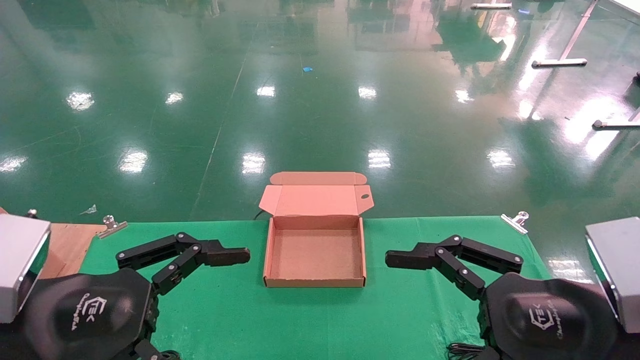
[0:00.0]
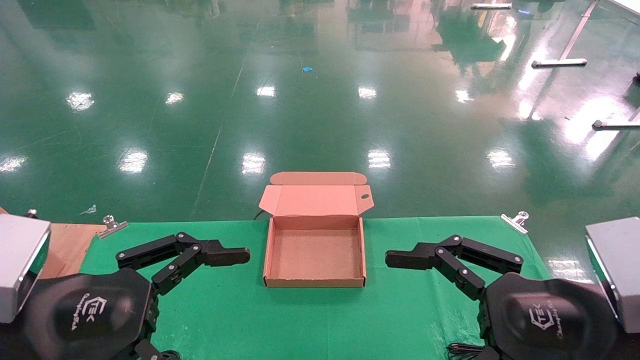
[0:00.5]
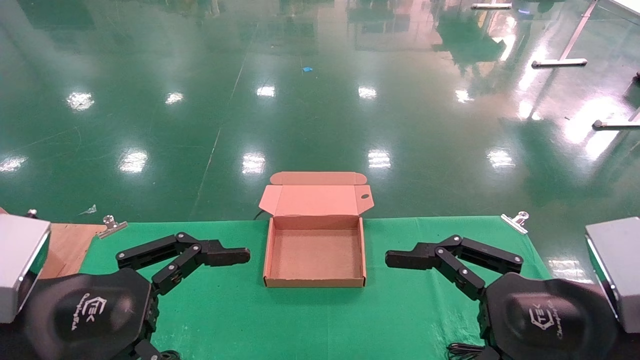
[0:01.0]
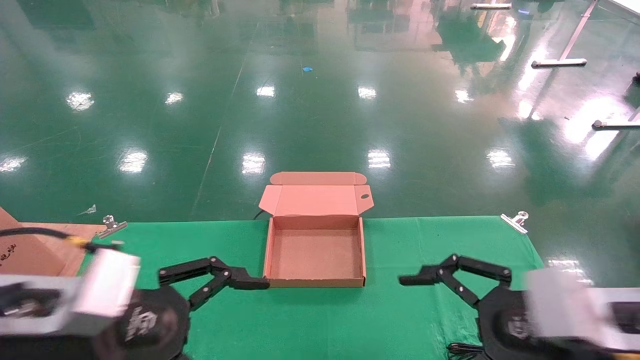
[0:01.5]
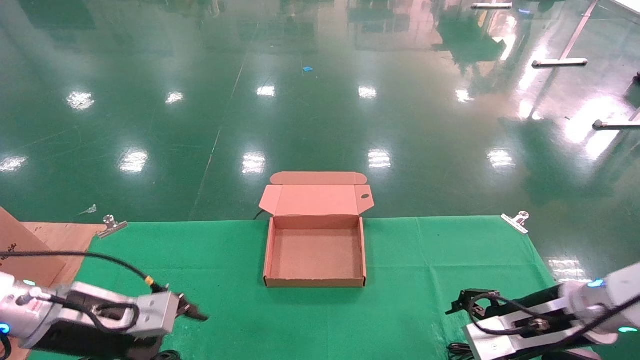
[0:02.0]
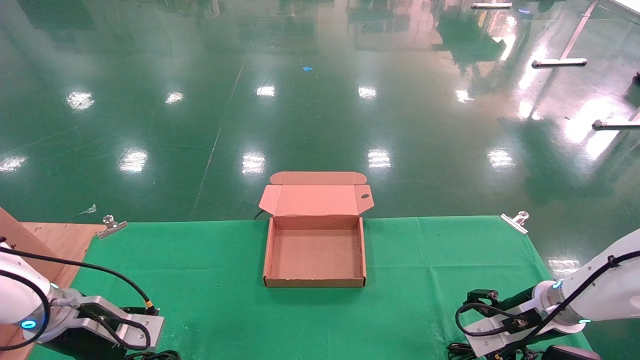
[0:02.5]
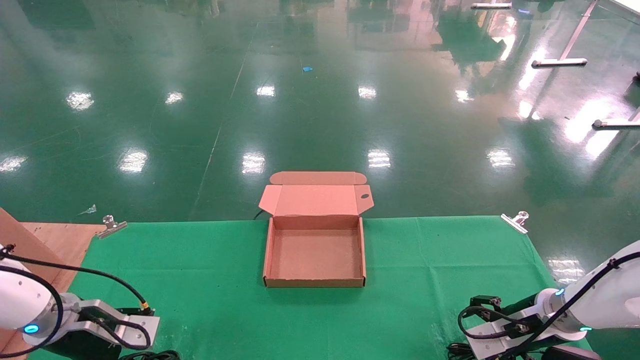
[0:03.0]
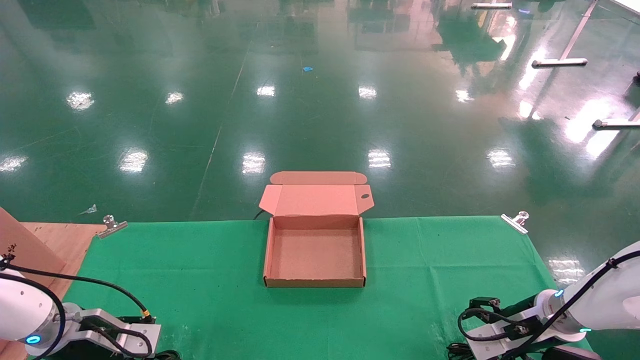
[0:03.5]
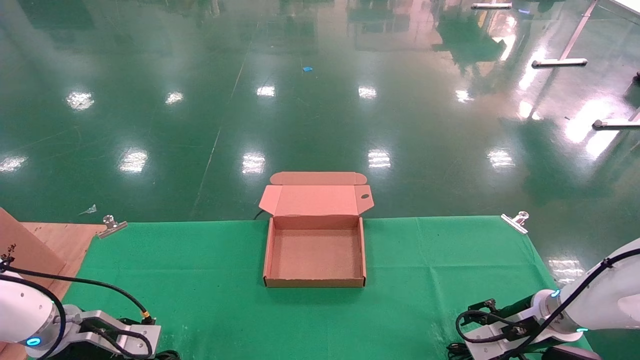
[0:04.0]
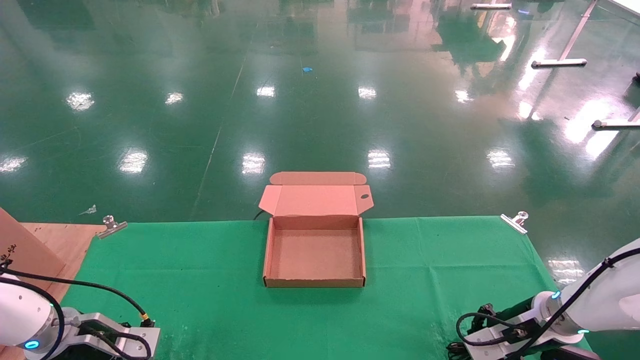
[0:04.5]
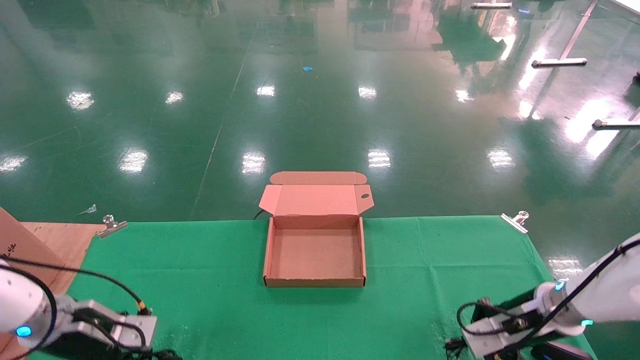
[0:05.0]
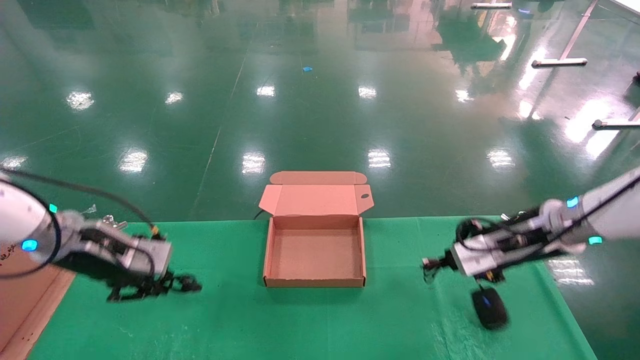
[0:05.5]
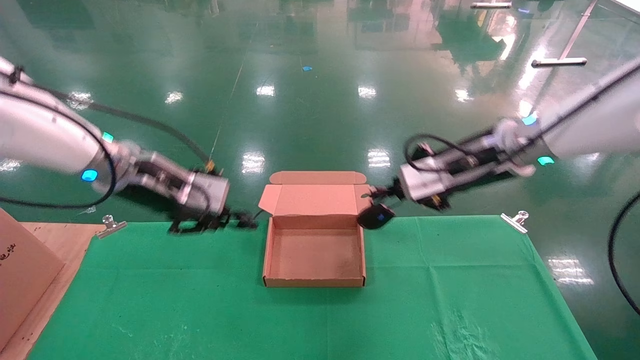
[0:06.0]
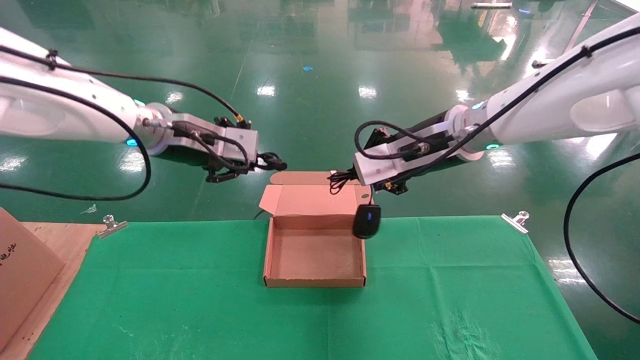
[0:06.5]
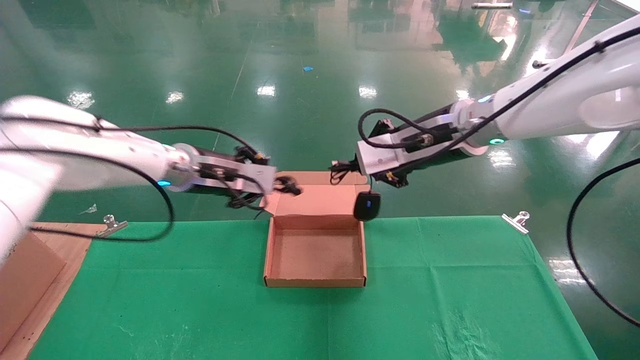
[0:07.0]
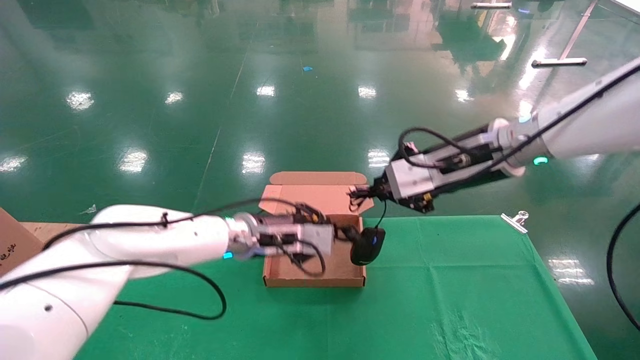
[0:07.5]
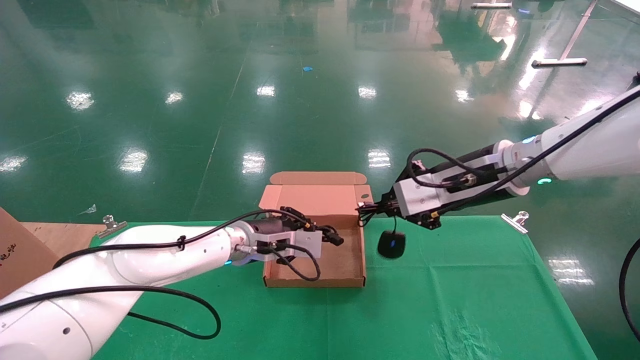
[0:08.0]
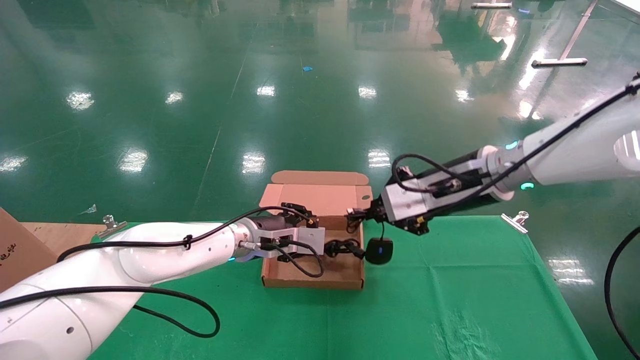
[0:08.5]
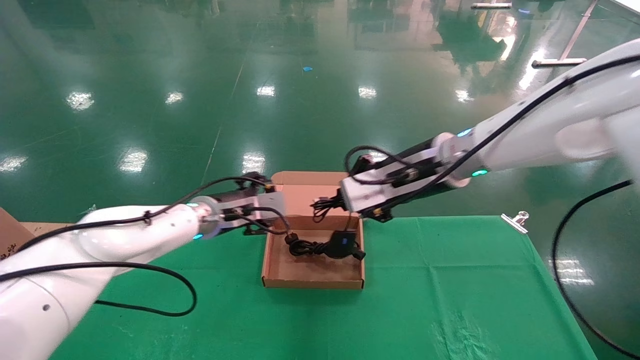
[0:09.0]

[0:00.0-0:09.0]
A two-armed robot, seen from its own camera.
Step, 0:01.5 to 0:04.5: Grab and lift both the mouse and power cord from the accessory packaging area at the same time.
0:00.0 to 0:02.0: Both grippers travel together forward and downward, approximately 20 cm.
0:02.0 to 0:04.5: The left gripper is displaced downward, to the left and forward by some 10 cm, and closes. Meanwhile the right gripper travels downward and forward by approximately 10 cm, and closes its fingers.
0:04.5 to 0:07.0: The right gripper goes some 35 cm upward and to the left, while the left gripper moves upward and to the right, some 30 cm.
0:07.0 to 0:09.0: The left gripper is displaced downward by some 10 cm, and opens up, while the right gripper shifts by about 5 cm.

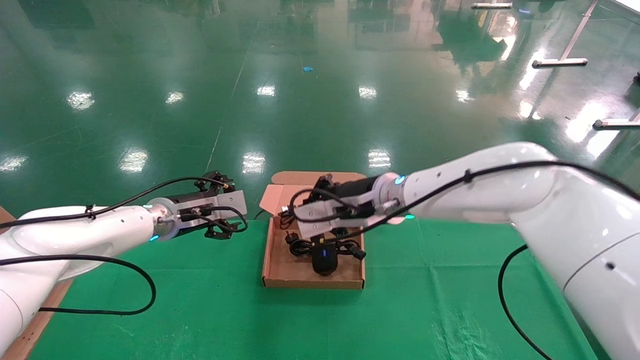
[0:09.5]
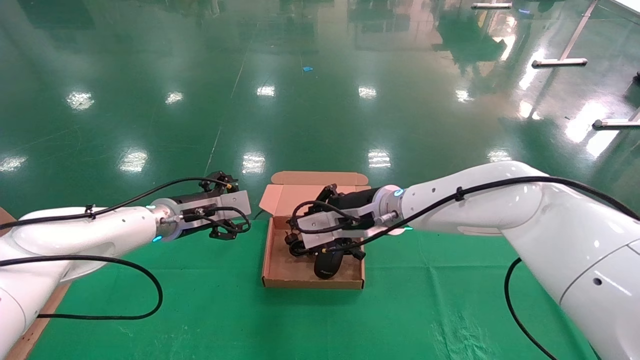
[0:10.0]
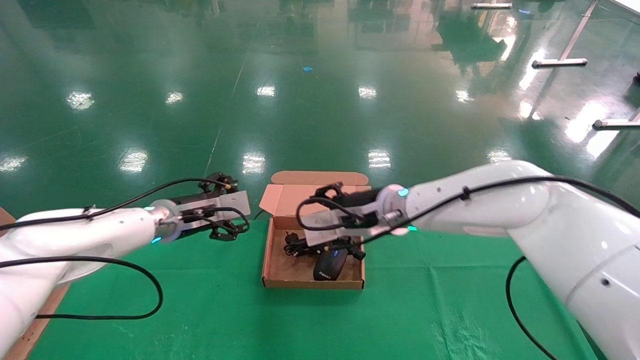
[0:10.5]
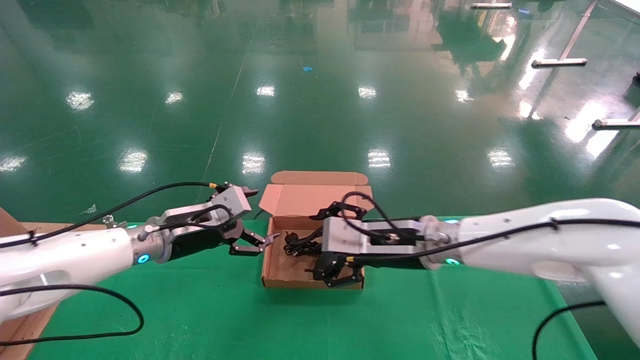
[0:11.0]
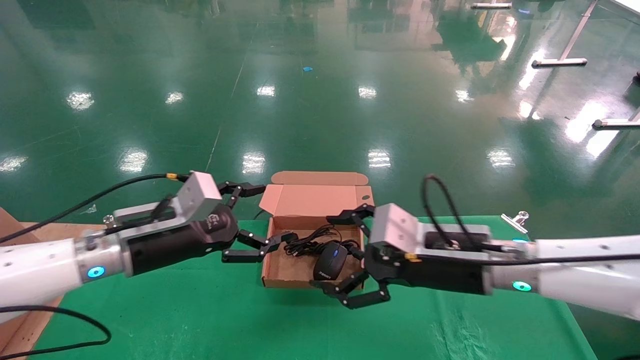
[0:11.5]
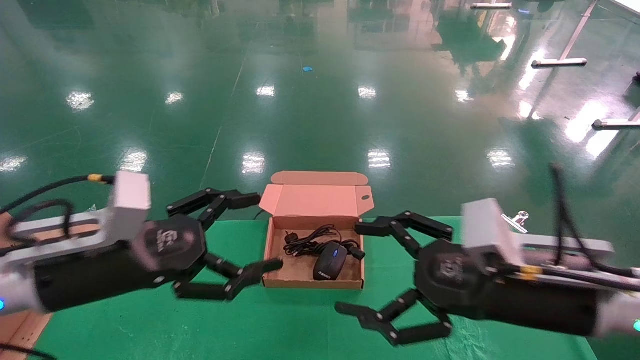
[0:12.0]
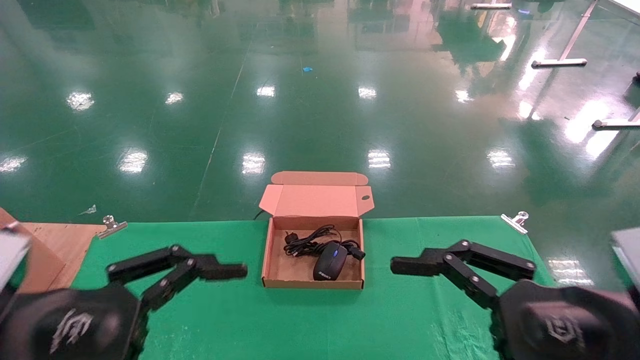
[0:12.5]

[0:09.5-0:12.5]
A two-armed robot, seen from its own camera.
0:09.5 to 0:11.0: The left gripper shifts roughly 5 cm backward; the right gripper moves downward, roughly 5 cm, and opens its fingers.
0:11.0 to 0:12.5: The right gripper heads backward and to the right, covering approximately 25 cm. The left gripper heads backward, covering some 25 cm.

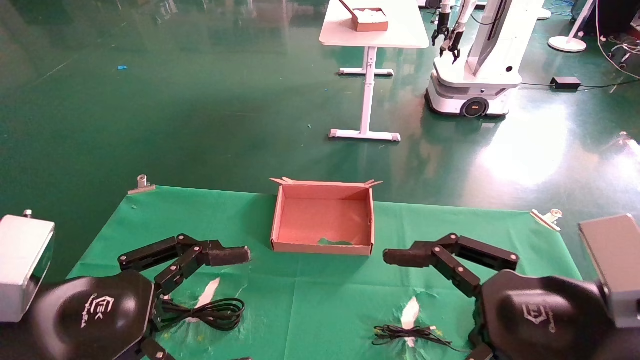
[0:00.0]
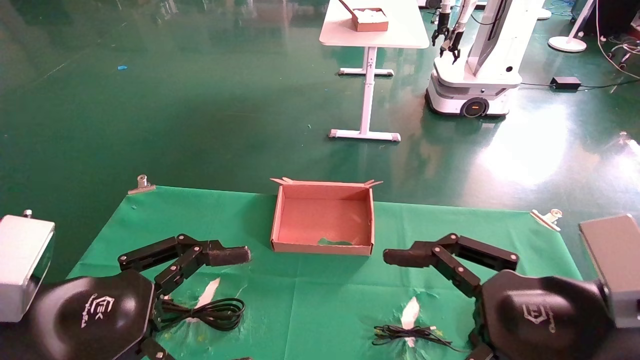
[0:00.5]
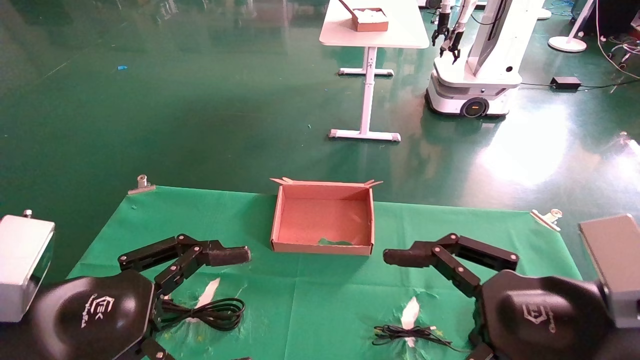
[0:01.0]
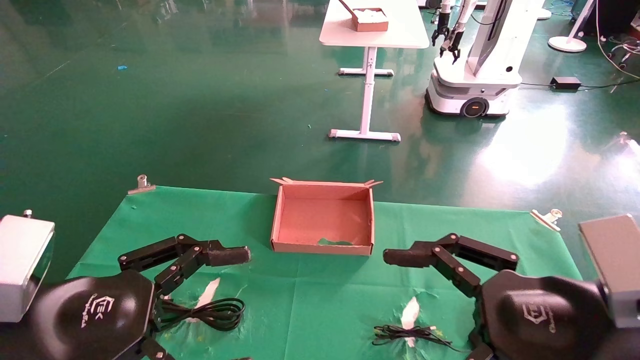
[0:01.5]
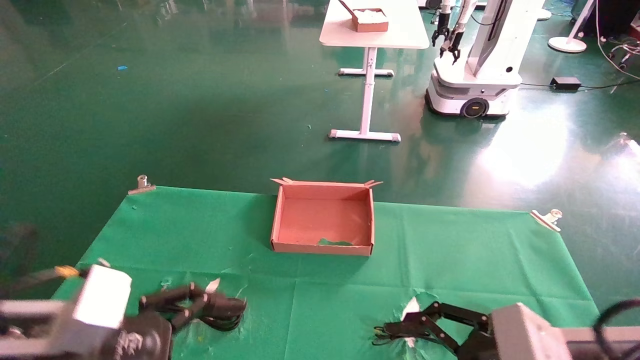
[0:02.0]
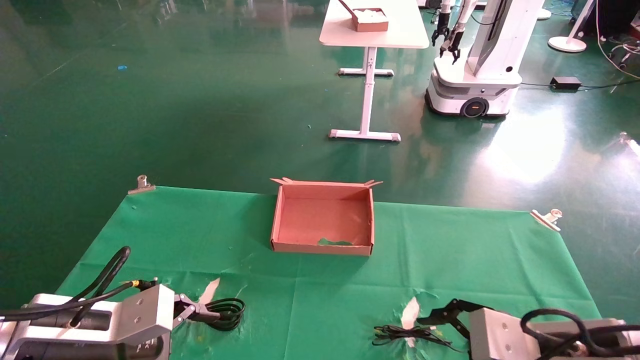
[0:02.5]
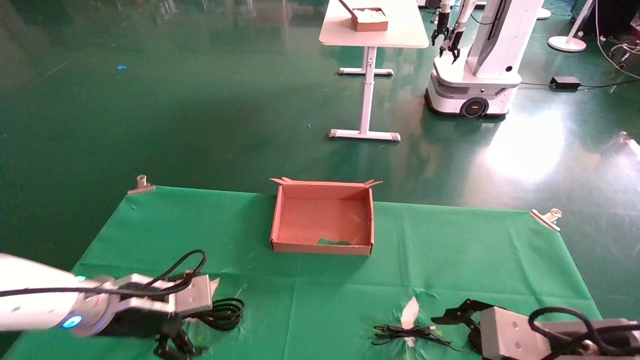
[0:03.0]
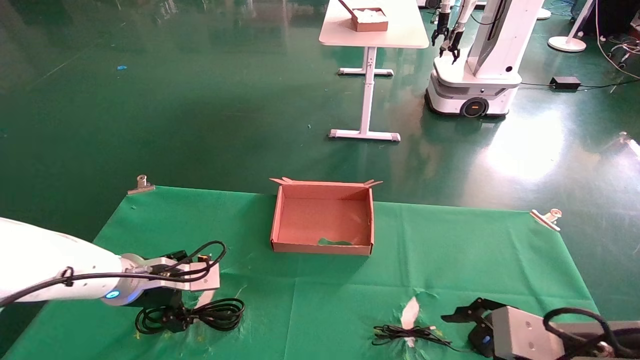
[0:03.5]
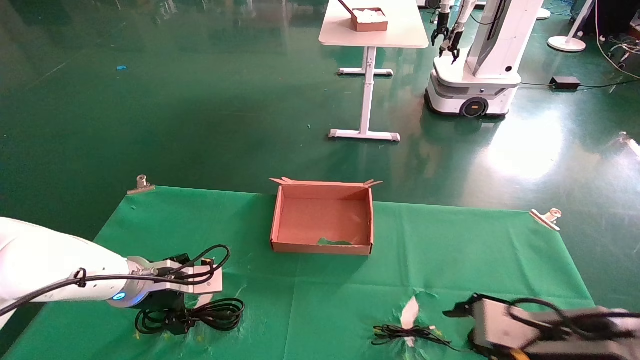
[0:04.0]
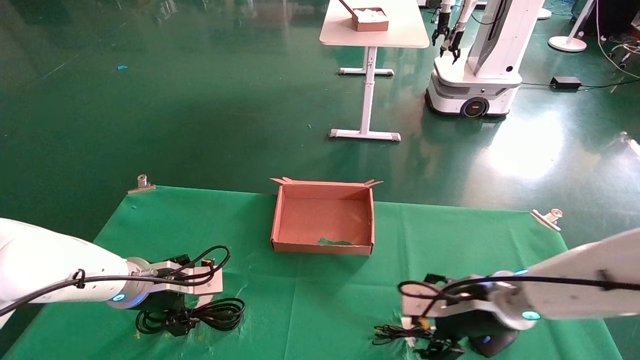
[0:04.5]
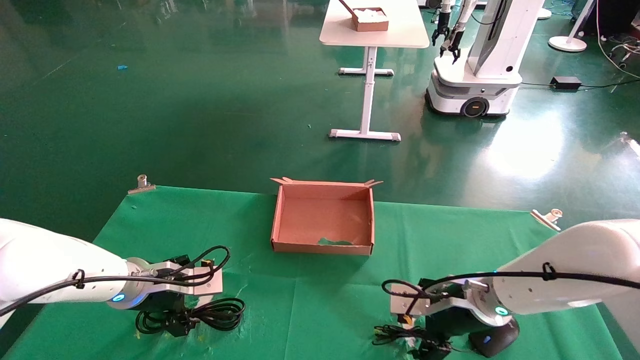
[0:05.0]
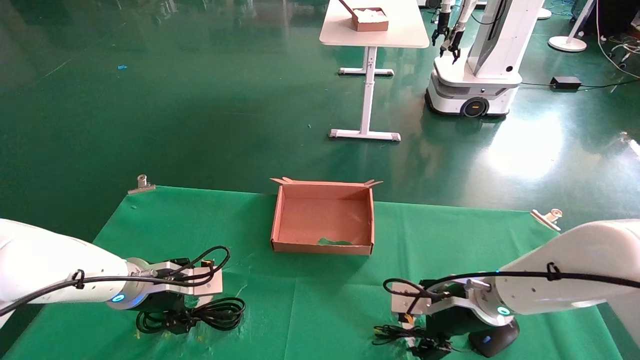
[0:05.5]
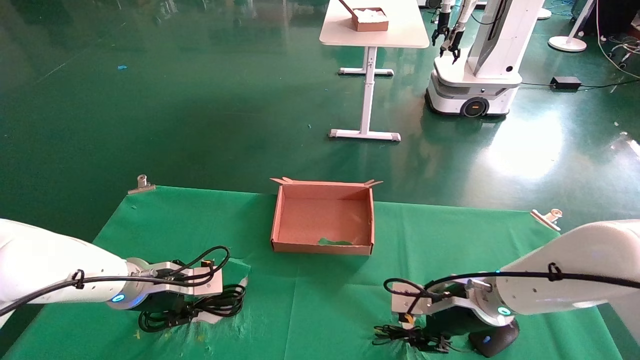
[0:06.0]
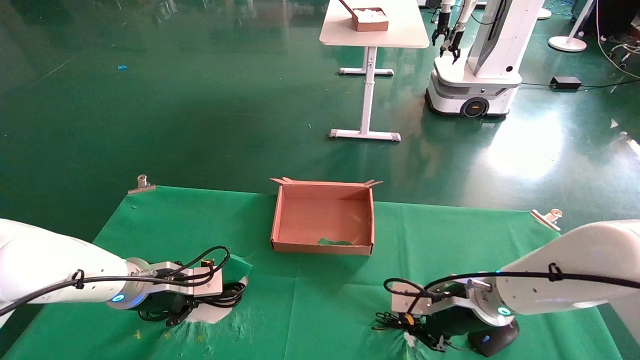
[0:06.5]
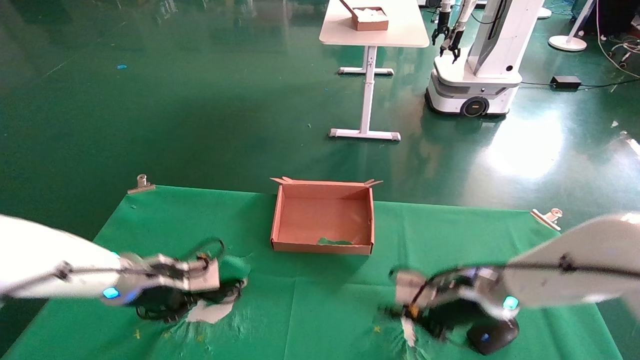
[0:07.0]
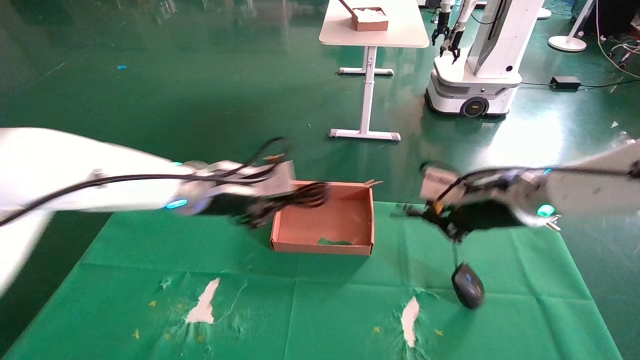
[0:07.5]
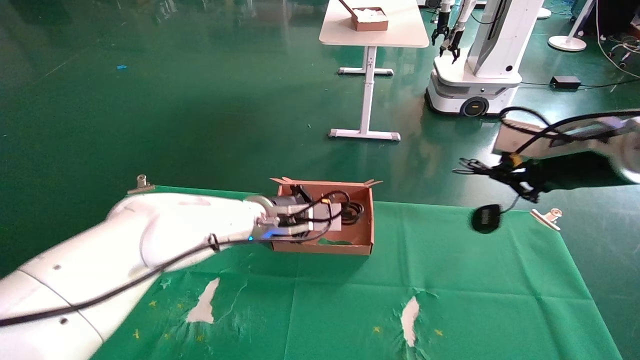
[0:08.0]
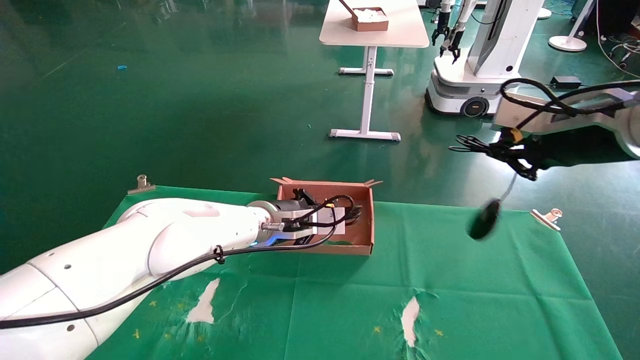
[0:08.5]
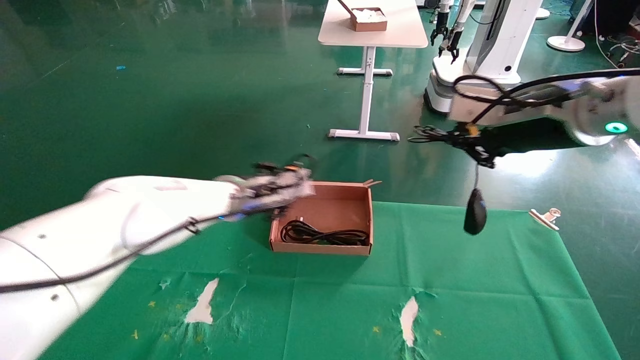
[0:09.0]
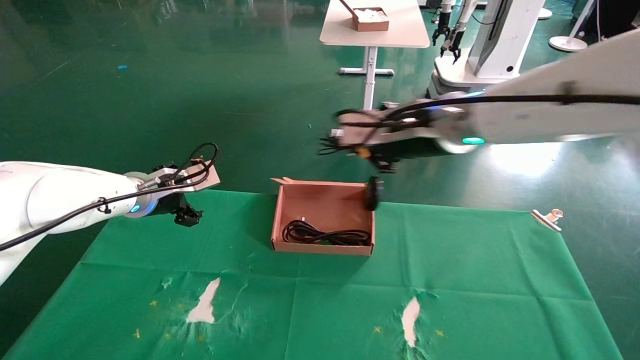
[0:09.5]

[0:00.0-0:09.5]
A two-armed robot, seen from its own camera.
Step, 0:03.0 to 0:07.0: Grab and lift both the mouse and power cord from the accessory packaging area at the same time.
0:00.0 to 0:02.0: The right gripper moves downward, about 5 cm. Meanwhile the left gripper shifts by approximately 5 cm.
0:02.0 to 0:04.0: The right gripper shifts approximately 5 cm forward. Meanwhile the left gripper shifts roughly 20 cm forward.
0:04.0 to 0:05.5: The right gripper heads forward and to the left, covering roughly 15 cm.
0:05.5 to 0:07.5: The left gripper goes roughly 15 cm upward and to the right, and closes its fingers; the right gripper shifts roughly 15 cm upward, and closes up.
0:07.5 to 0:09.5: The right gripper is displaced to the left and upward by roughly 15 cm. Meanwhile the left gripper shifts some 15 cm to the left and forward, and opens up.
